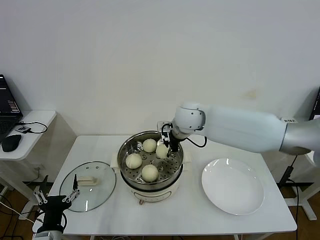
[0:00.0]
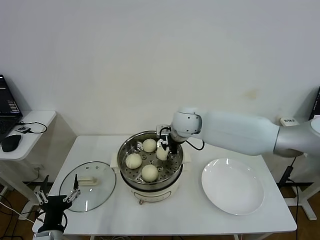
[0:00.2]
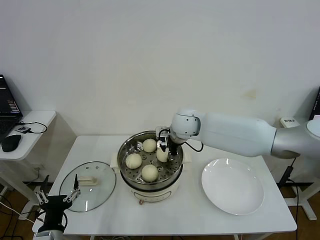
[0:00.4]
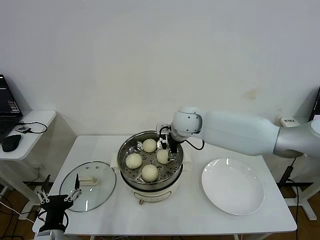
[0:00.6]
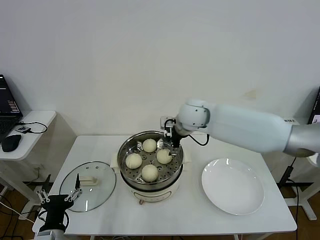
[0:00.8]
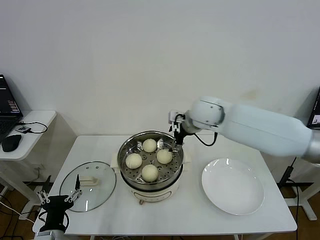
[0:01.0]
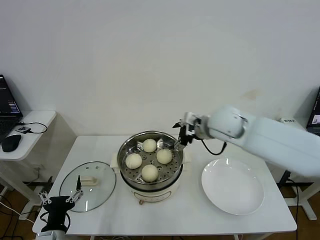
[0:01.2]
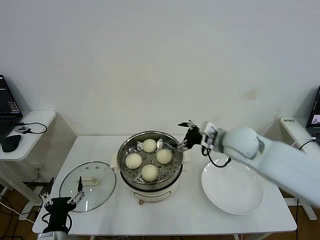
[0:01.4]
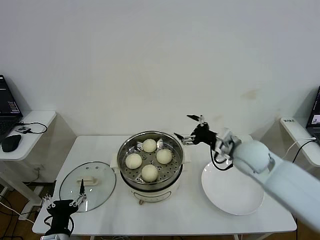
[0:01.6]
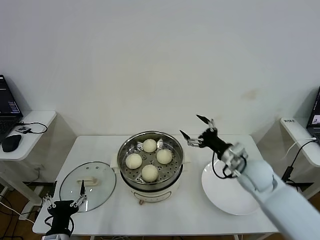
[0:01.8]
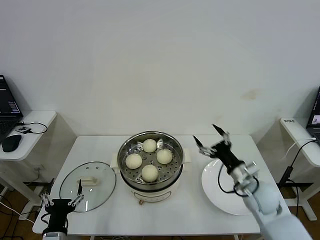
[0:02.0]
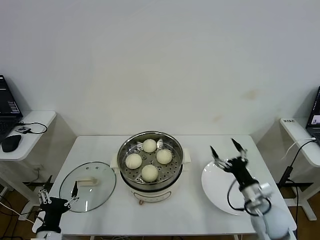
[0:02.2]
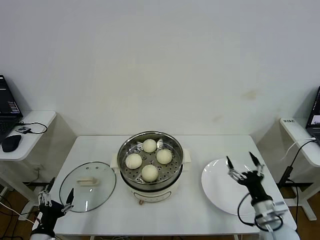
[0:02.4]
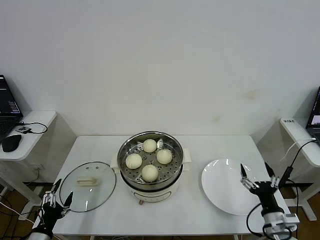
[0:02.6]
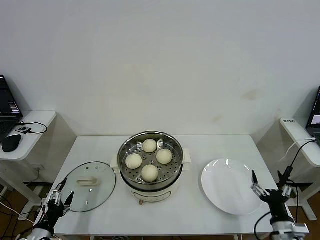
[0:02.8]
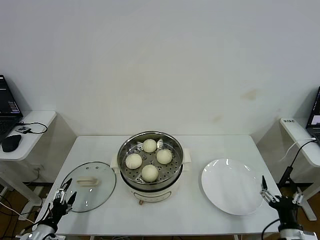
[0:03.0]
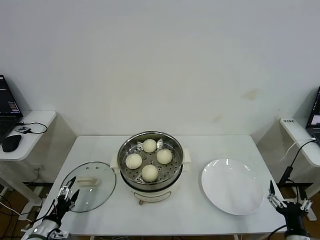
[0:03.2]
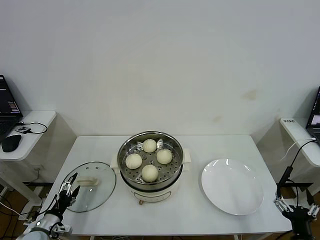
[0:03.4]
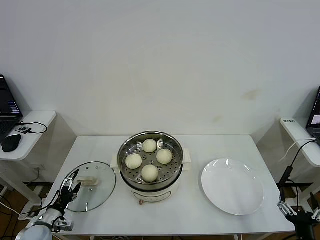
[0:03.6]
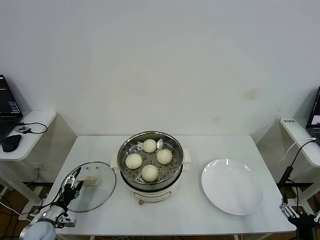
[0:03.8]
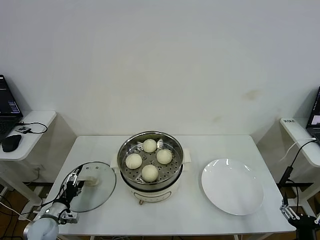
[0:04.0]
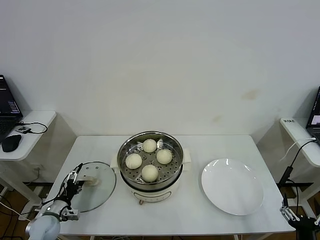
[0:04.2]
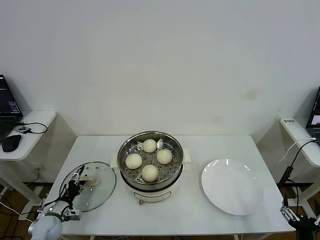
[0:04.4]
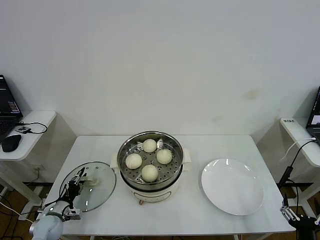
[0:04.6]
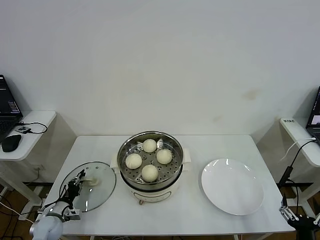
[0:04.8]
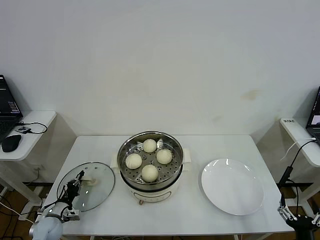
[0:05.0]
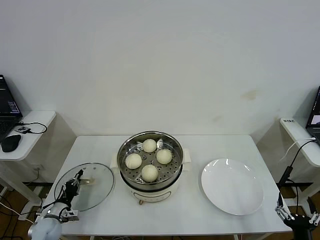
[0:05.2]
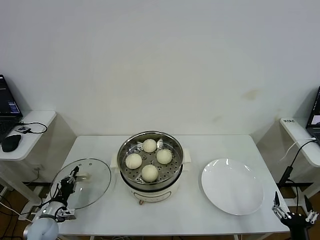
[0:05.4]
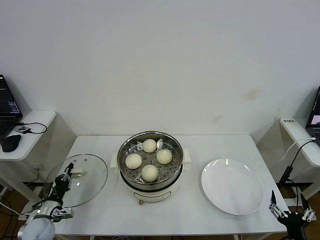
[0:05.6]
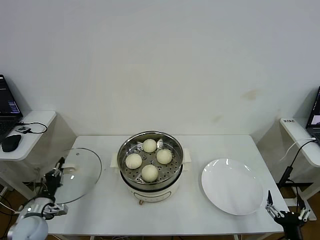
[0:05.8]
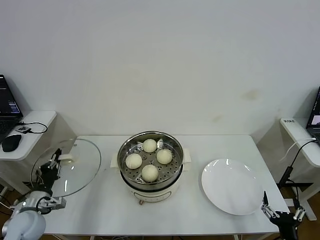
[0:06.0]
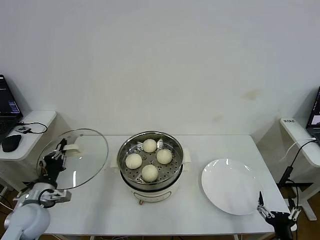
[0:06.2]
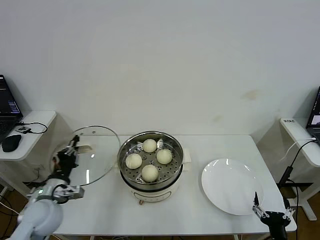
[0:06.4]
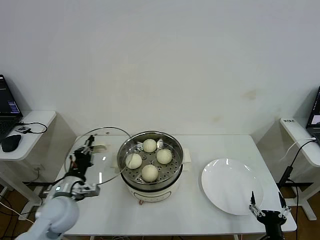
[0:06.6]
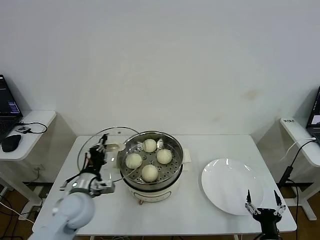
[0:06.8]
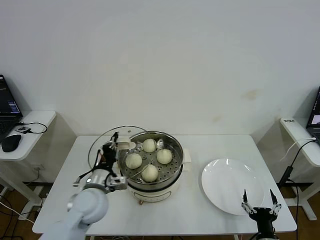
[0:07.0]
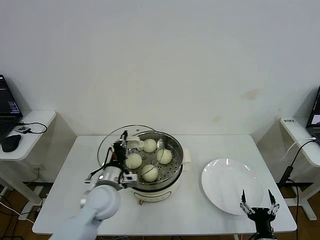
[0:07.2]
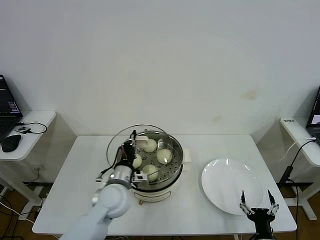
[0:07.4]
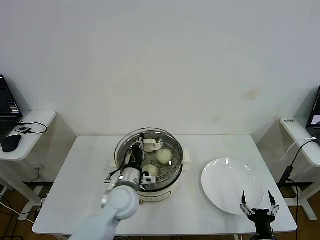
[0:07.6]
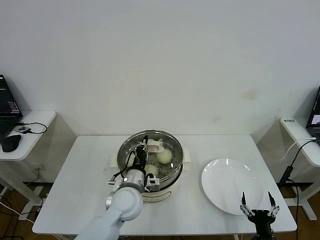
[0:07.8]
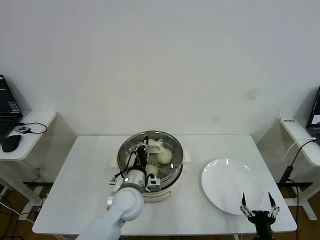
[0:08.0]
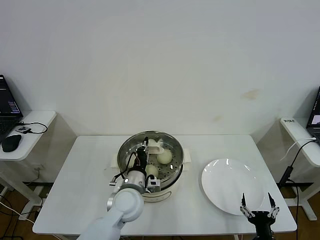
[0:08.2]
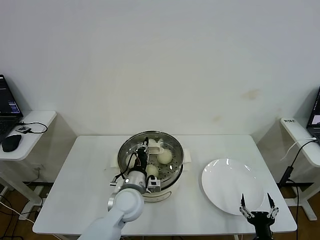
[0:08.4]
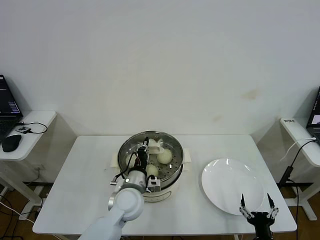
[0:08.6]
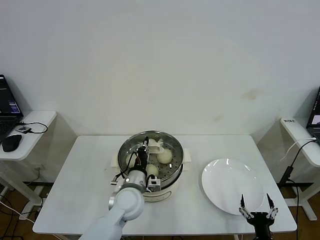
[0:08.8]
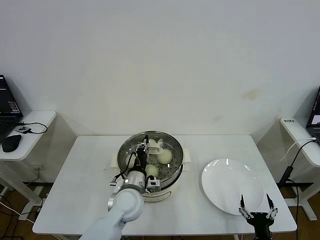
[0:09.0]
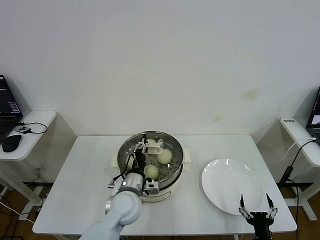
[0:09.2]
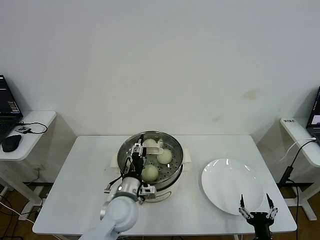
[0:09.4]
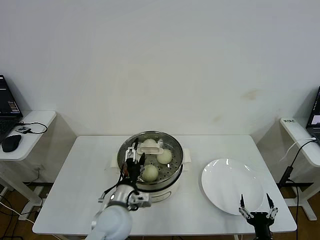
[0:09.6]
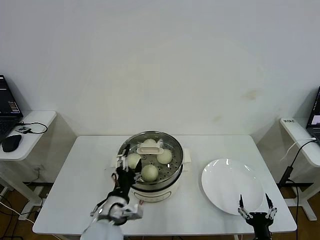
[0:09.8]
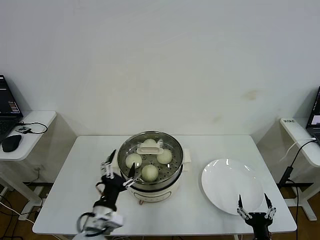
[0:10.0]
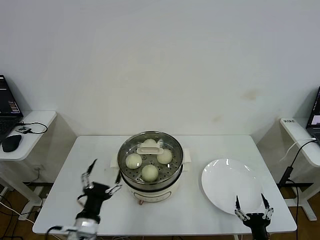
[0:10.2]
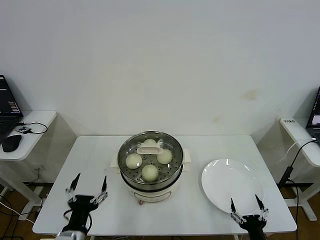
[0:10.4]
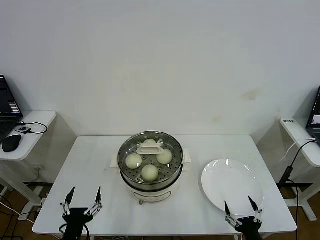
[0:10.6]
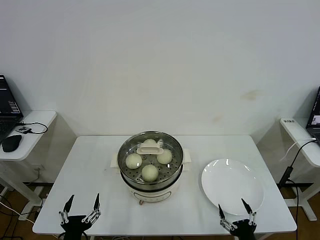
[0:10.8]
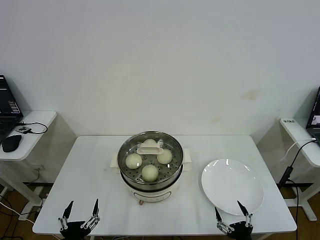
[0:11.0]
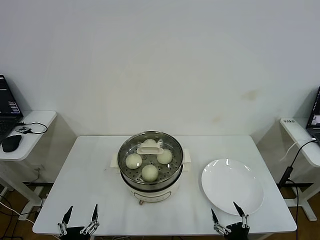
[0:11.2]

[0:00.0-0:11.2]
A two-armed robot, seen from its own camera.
Step, 0:00.6 to 0:05.0: Grasp the pot lid with left gripper.
Step, 0:05.2 to 0:09.2: Place the pot lid on the steamer with left gripper.
0:00.0 to 0:01.6: The right gripper travels to the right and backward by roughly 20 cm, and opens up.
0:01.6 to 0:03.2: The left gripper is displaced to the left, downward and forward by approximately 15 cm, while the right gripper is displaced backward, downward and to the right by some 35 cm.
0:03.2 to 0:04.8: The left gripper goes approximately 10 cm forward, and closes.
0:04.8 to 0:06.4: The left gripper travels upward and to the right by about 20 cm. Meanwhile the right gripper changes place by roughly 5 cm.
0:06.4 to 0:08.0: The left gripper moves to the right, about 25 cm.
0:08.0 to 0:09.6: The left gripper shifts by some 5 cm, and opens.
0:09.6 to 0:11.2: The left gripper goes about 25 cm backward and to the left, while the right gripper shifts by some 5 cm.
